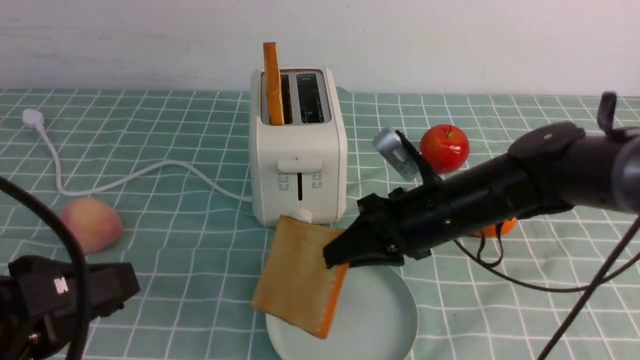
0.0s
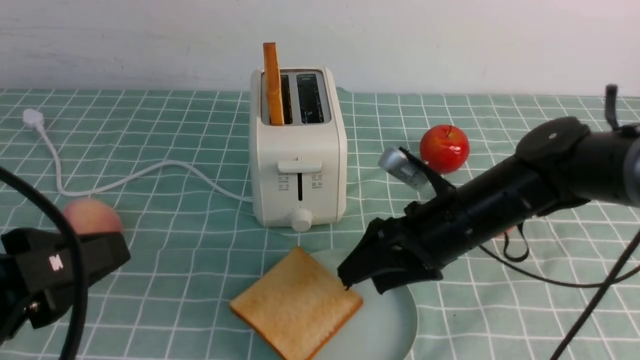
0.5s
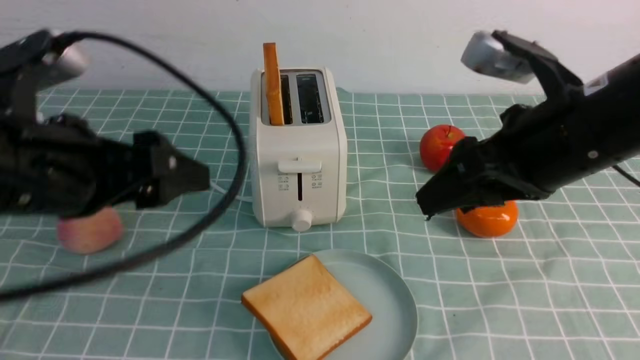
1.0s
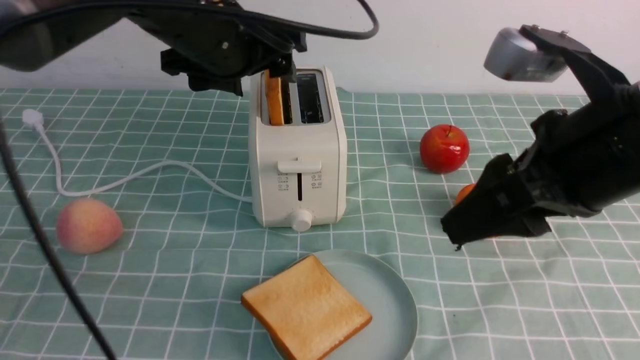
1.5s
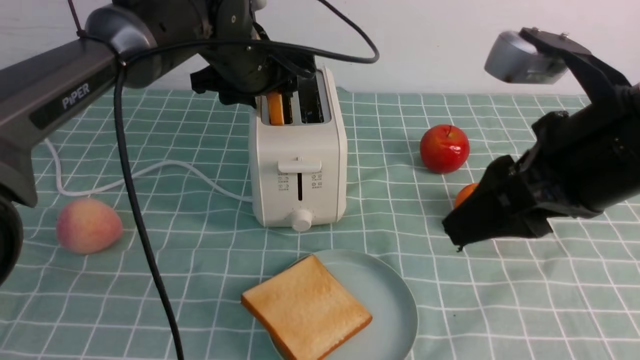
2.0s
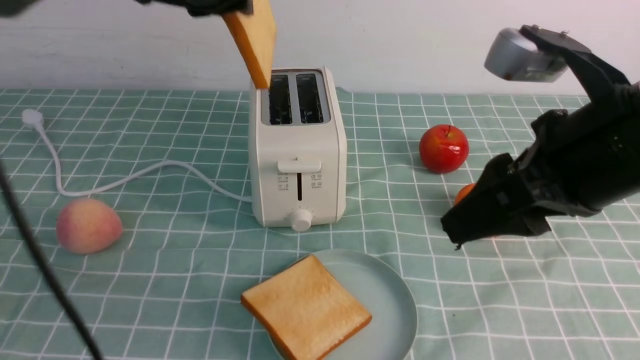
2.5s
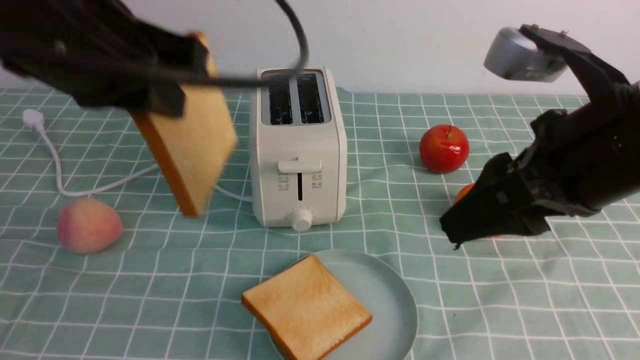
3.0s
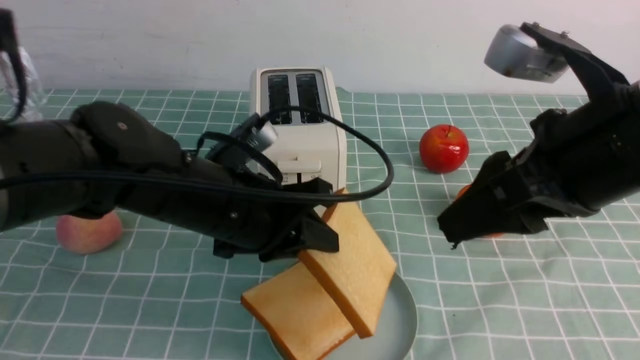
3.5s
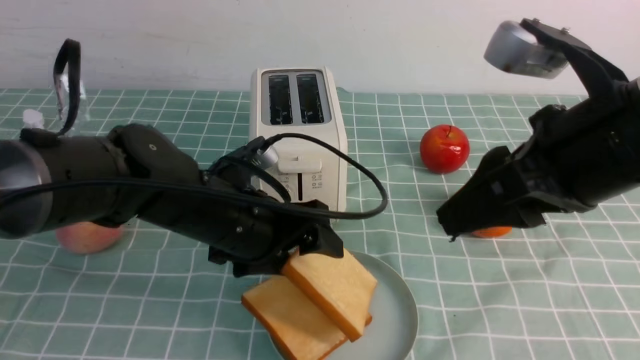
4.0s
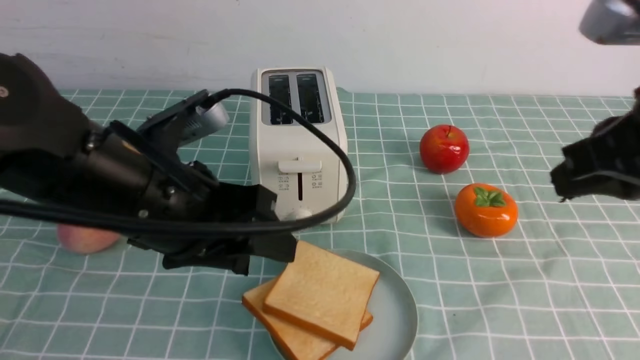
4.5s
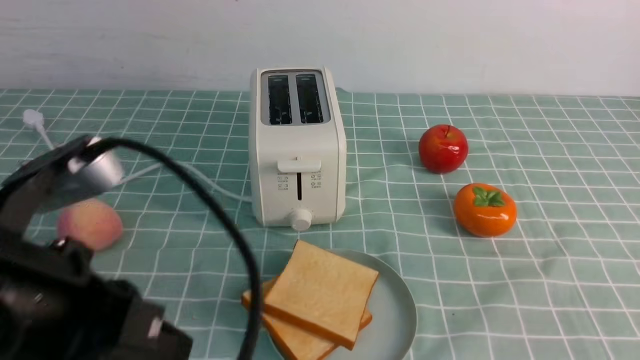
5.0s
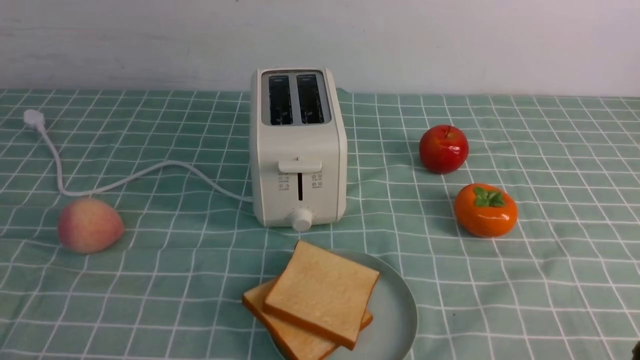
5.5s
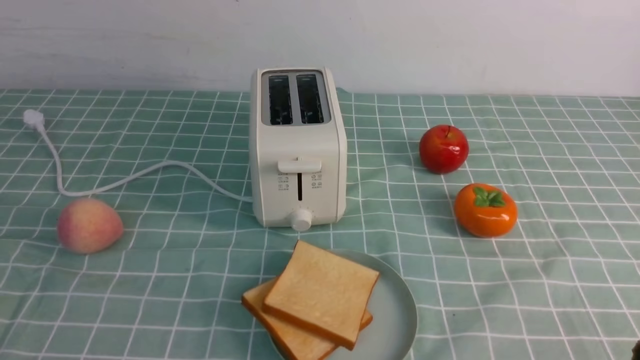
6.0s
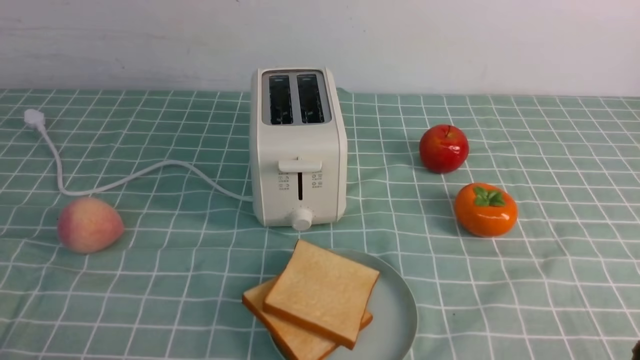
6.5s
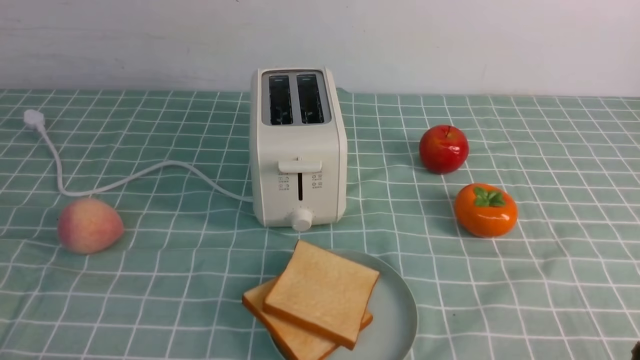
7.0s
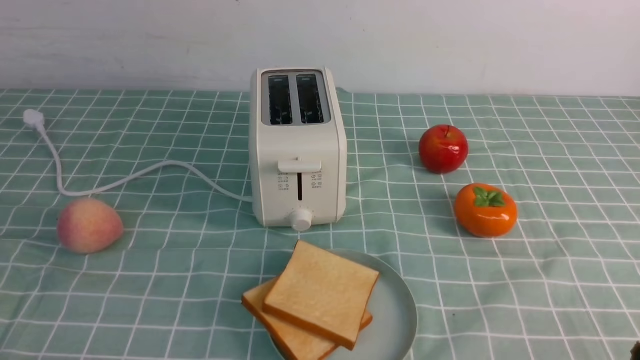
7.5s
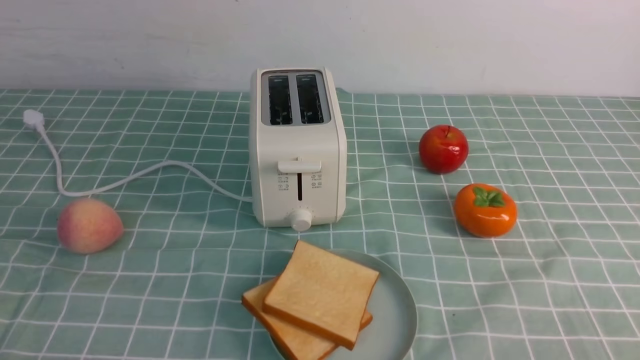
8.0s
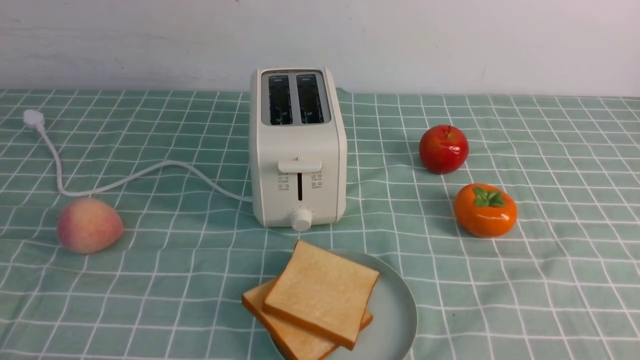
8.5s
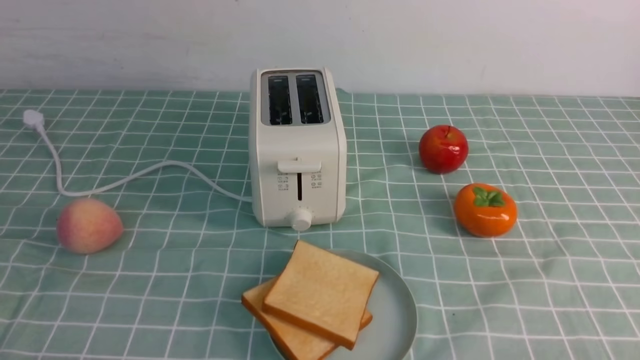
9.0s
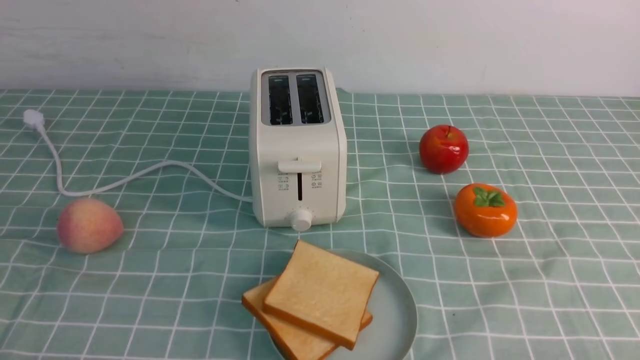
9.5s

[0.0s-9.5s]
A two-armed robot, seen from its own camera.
Task of the whole recording: take toasted bread from bread machine on blue coffee table place on plate.
Step, 1.0s to 2.5s: use the left arm to take out a slice of bread.
Step, 3.0s to 4.0s: use the left arm to put a slice of bread into the empty plate.
0.0s to 2.0s: The right gripper is displaced upward and backward by roughly 20 cm, and opens its fingers, while the left gripper is displaced forward by roughly 35 cm, and opens and closes again.
2.0s to 4.0s: The left gripper travels backward and downward by about 15 cm, and closes, then opens again.
4.0s to 5.5s: The left gripper goes roughly 30 cm backward and to the left, and closes its fingers. The right gripper is displaced backward, downward and to the right by some 25 cm, and closes.

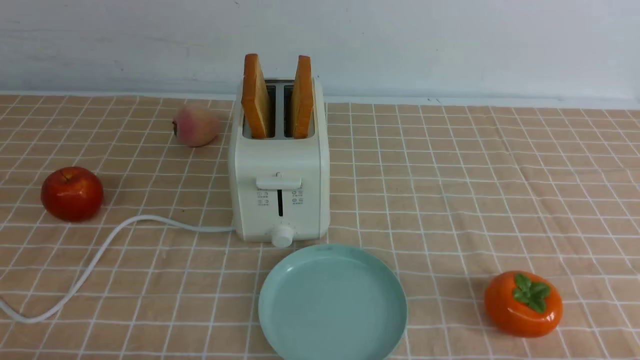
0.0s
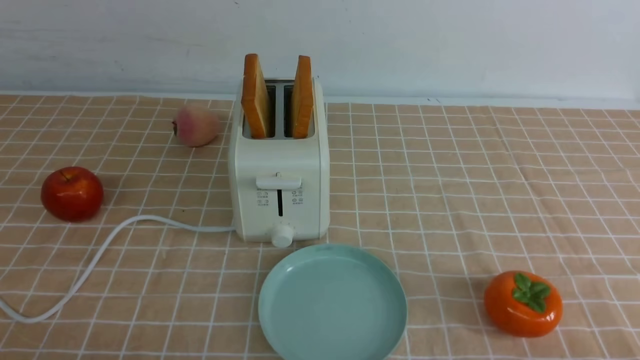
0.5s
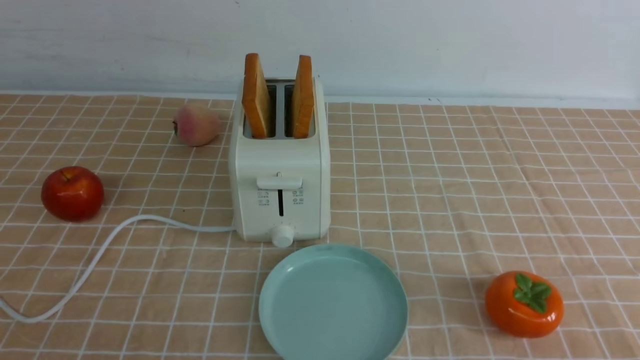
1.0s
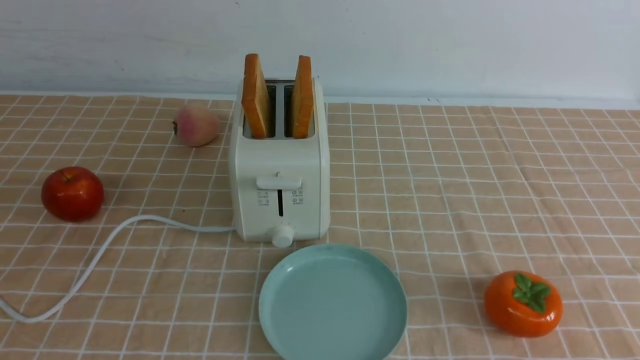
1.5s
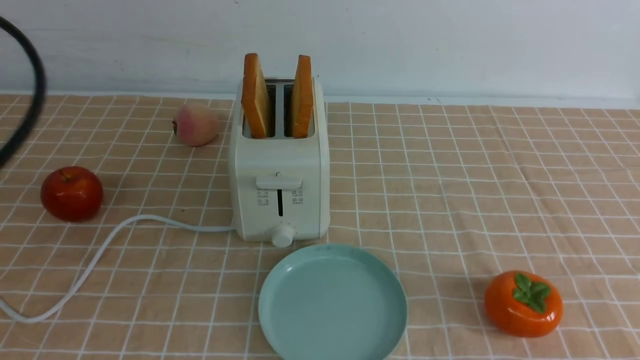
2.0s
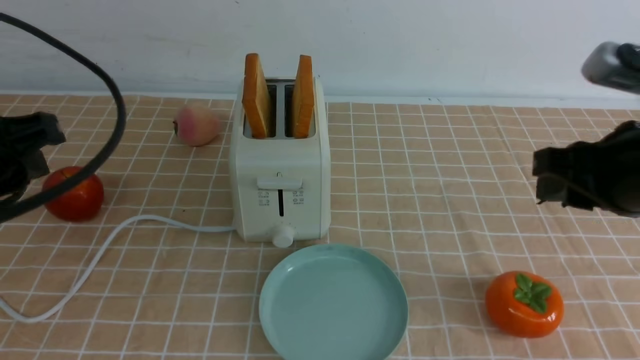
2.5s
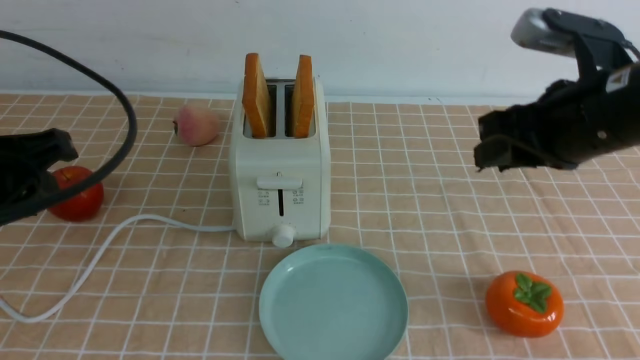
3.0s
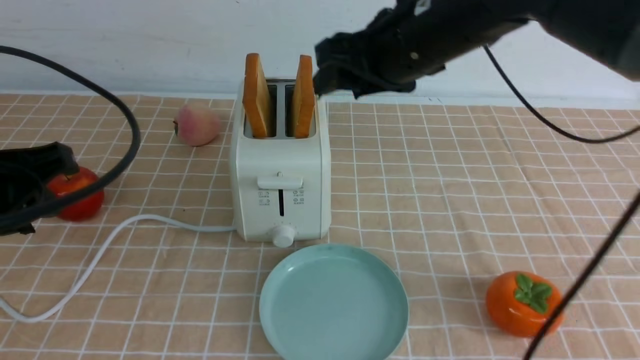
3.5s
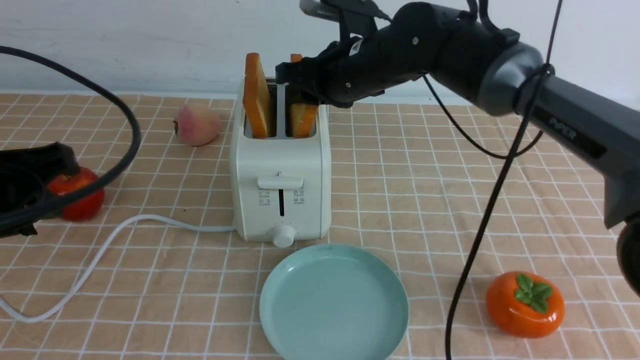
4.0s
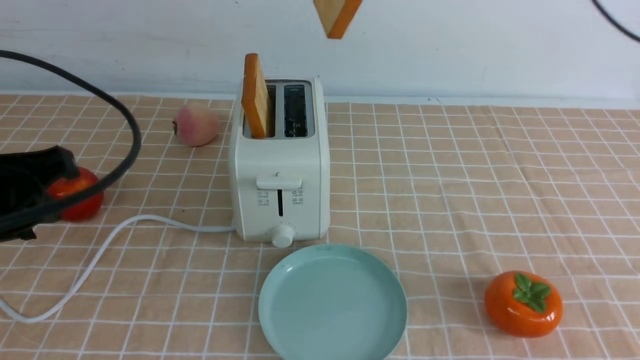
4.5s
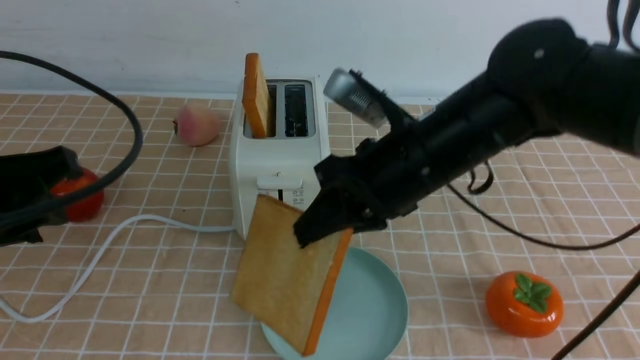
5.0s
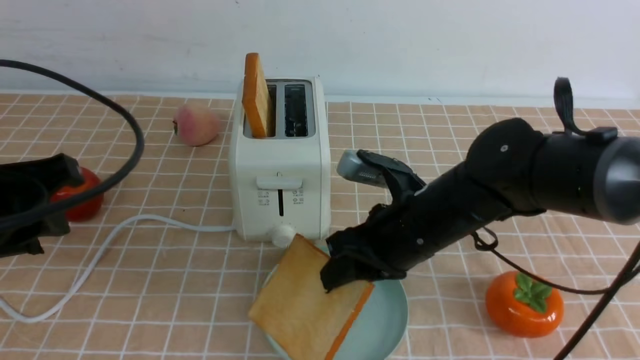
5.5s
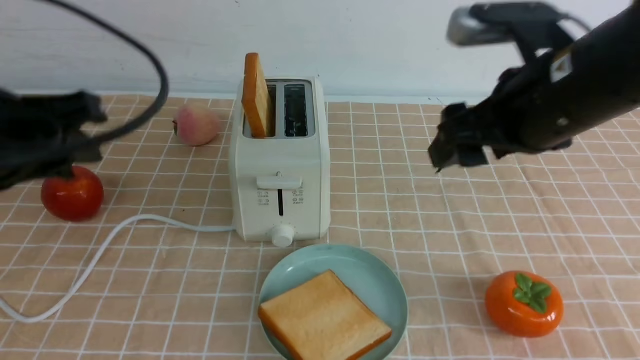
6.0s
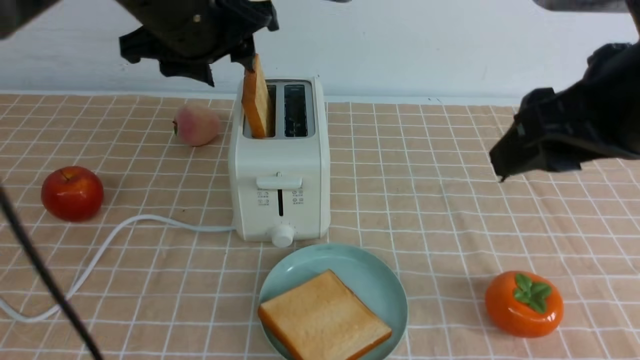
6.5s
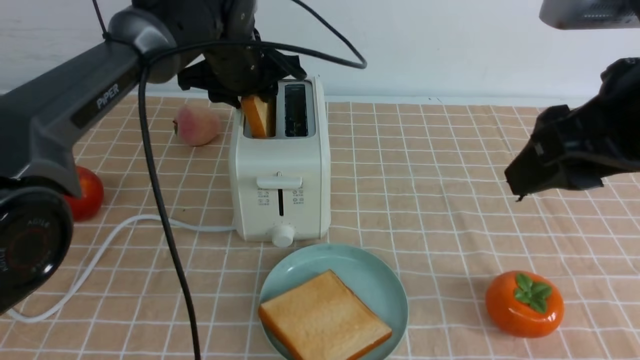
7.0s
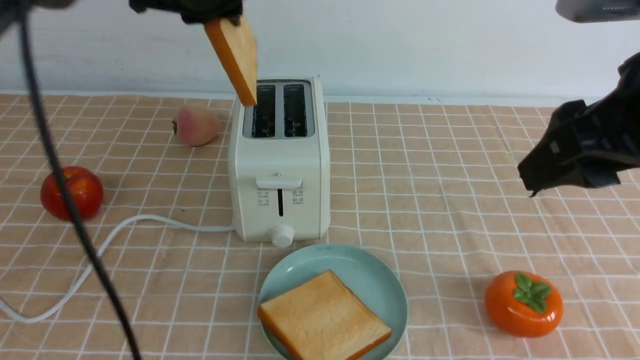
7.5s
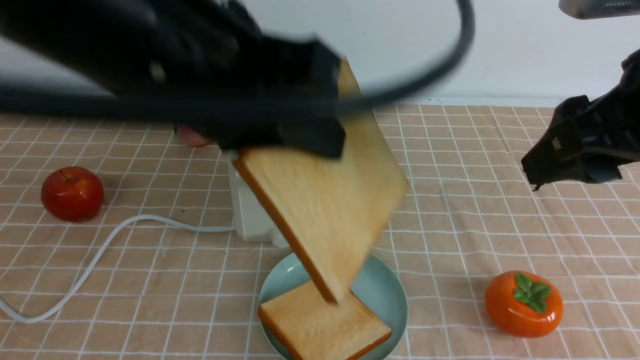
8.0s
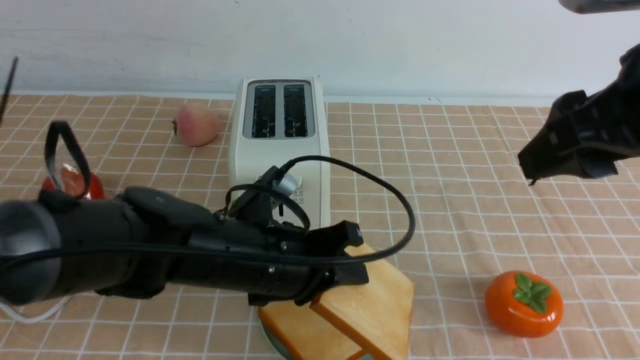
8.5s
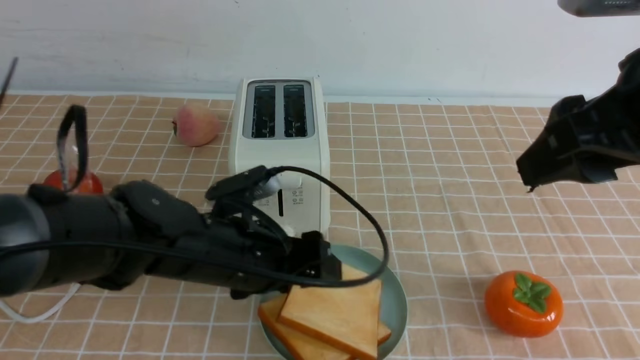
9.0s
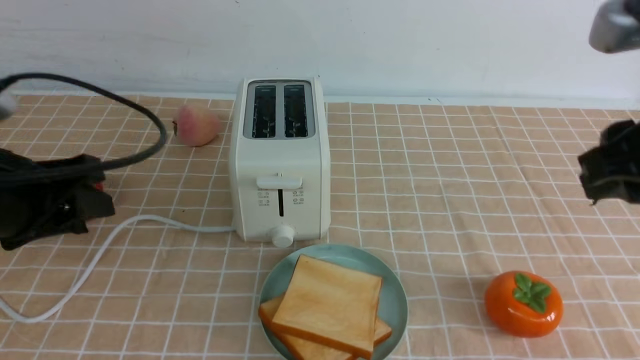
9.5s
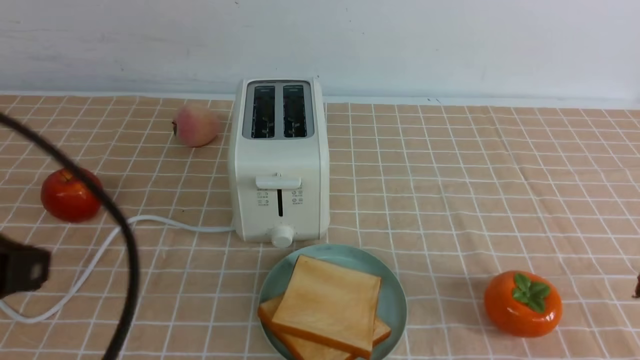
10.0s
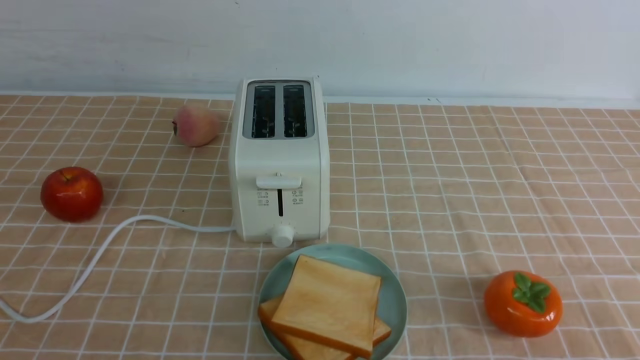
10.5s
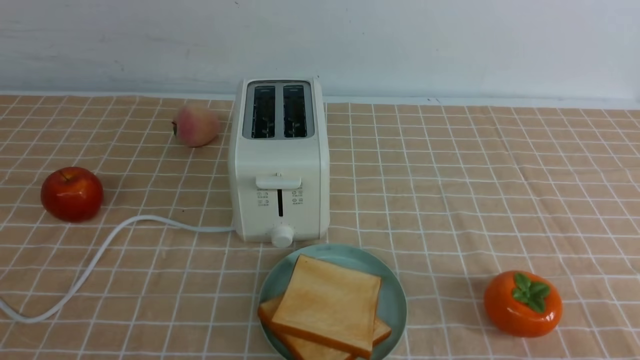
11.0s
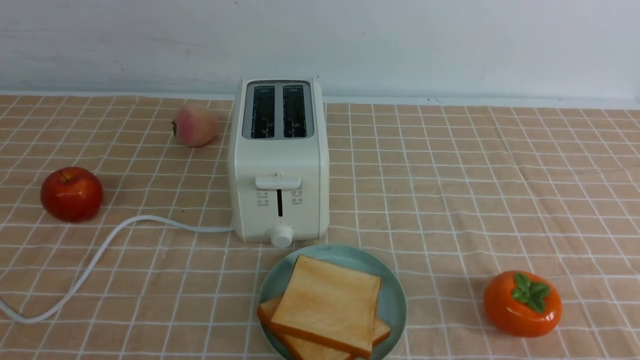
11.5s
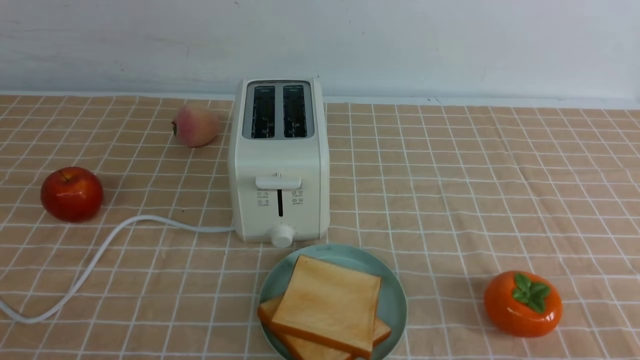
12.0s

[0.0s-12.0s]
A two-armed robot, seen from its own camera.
Task of the whole recording: take toasted bread from bread machine on light coffee tablecloth place on plate.
Step, 0.0s to 4.0s: use the right arm to take out a slice of bread.
Step, 4.5s to 5.5s: use the right arm to put a slice of bread into the plate.
Step, 6.0s to 7.0s: use the left arm to take out a slice of bread.
Step, 7.5s to 9.0s: use the left arm to put a slice of bread into the empty plate.
0.0s to 2.0s: The left gripper travels upward and forward by some 25 cm.
2.0s to 4.0s: The right gripper heads forward and to the left, covering roughly 35 cm. The left gripper moves some 5 cm.
4.0s to 6.0s: The right gripper moves up and down over roughly 25 cm, changing direction 2 times, and opens its fingers. Meanwhile the left gripper moves approximately 5 cm.
6.0s to 8.0s: The right gripper goes roughly 10 cm backward and upward, while the left gripper travels to the right by approximately 15 cm, and moves approximately 25 cm forward and comes back.
8.0s to 10.0s: The right gripper heads downward, backward and to the right, covering about 20 cm, and closes its fingers. The left gripper is displaced to the left and backward by approximately 20 cm, moves about 20 cm downward and comes back, and opens, then closes once more.
10.0s to 12.0s: The left gripper moves backward and downward, some 10 cm.
